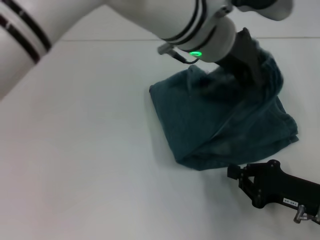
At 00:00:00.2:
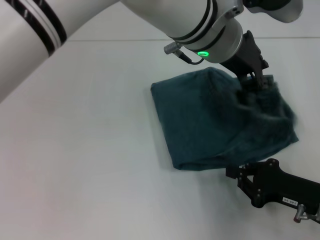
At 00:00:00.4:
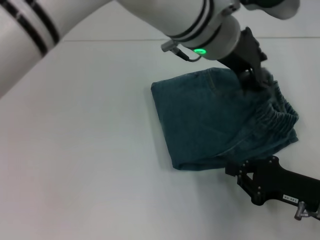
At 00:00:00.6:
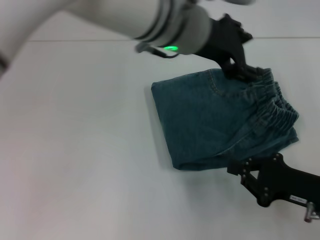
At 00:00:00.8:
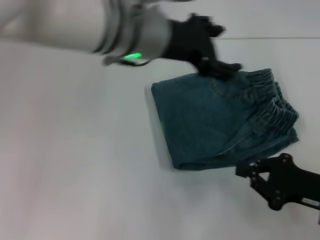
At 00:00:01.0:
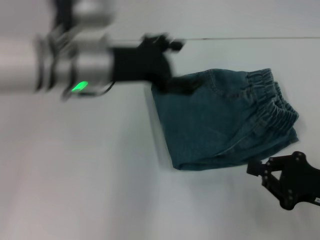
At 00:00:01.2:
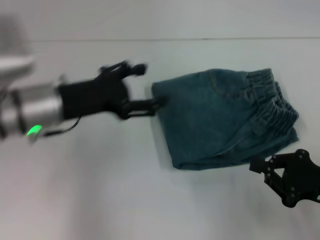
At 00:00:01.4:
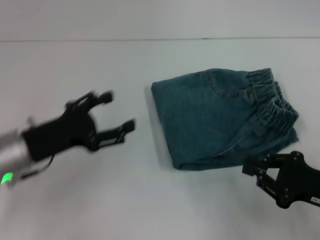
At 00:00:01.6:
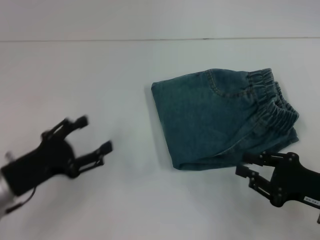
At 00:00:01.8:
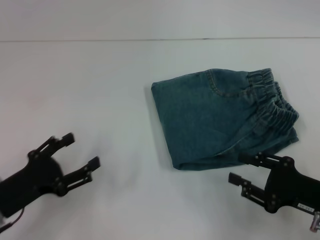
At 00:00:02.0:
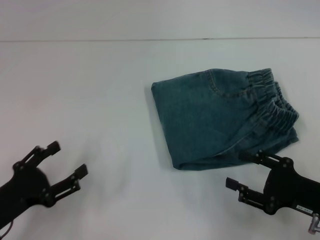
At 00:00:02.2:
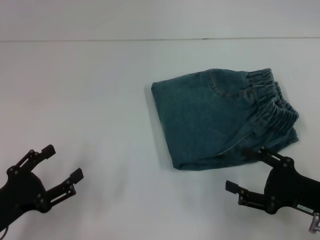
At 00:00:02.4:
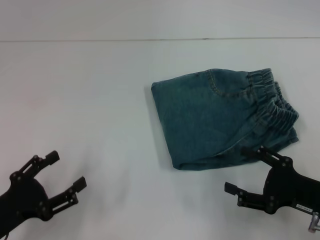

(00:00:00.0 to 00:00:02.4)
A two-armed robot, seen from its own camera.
00:00:00.0 - 00:00:01.2: The left gripper moves to the left and downward, approximately 25 cm, and opens up.
00:00:01.2 - 00:00:02.4: The left gripper moves backward, downward and to the left, about 20 cm. The right gripper opens up.
